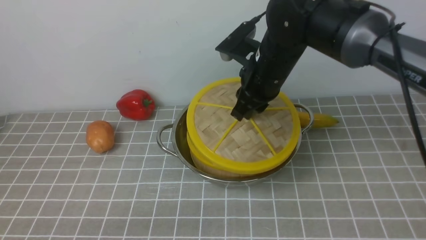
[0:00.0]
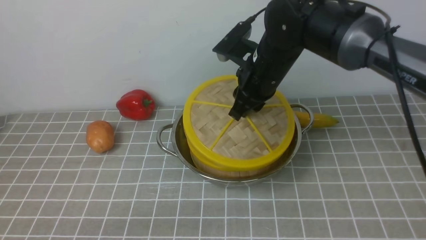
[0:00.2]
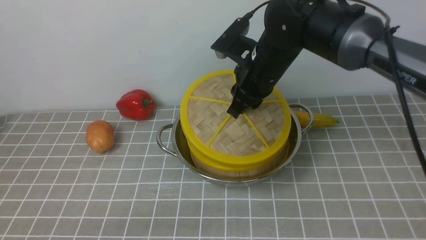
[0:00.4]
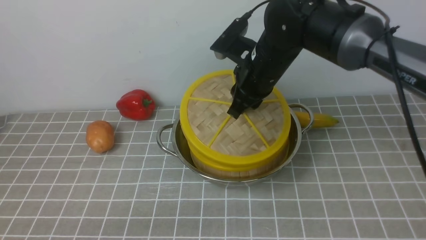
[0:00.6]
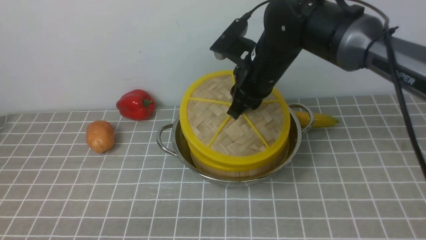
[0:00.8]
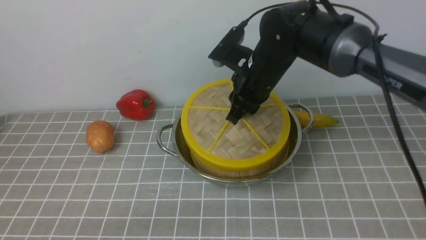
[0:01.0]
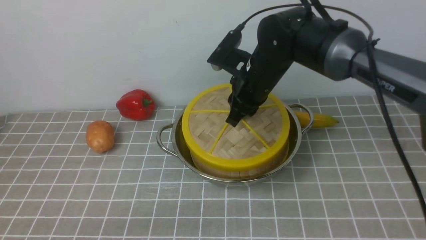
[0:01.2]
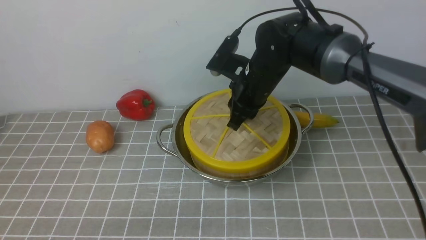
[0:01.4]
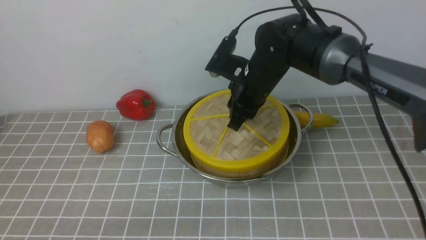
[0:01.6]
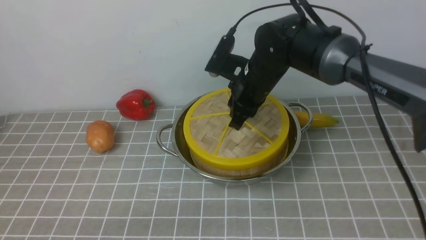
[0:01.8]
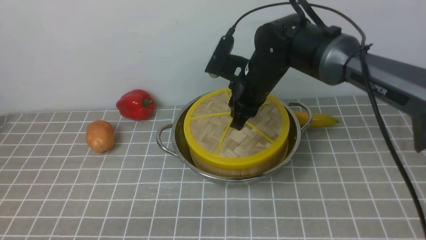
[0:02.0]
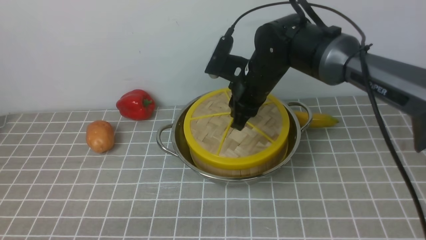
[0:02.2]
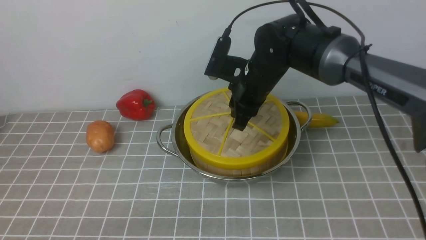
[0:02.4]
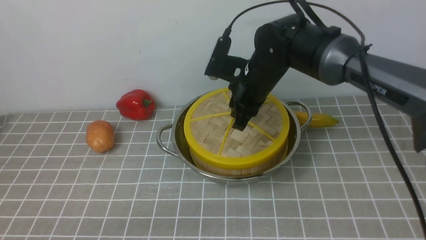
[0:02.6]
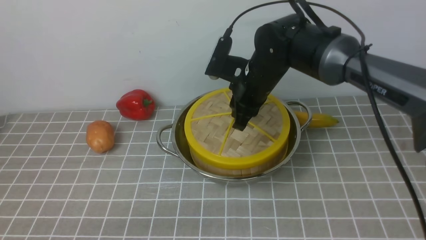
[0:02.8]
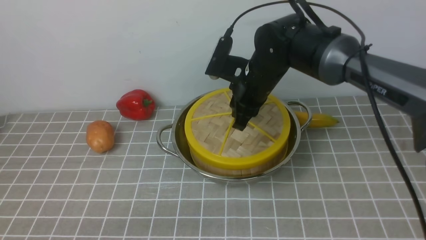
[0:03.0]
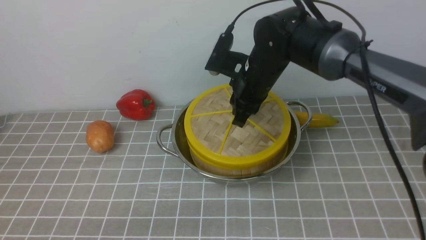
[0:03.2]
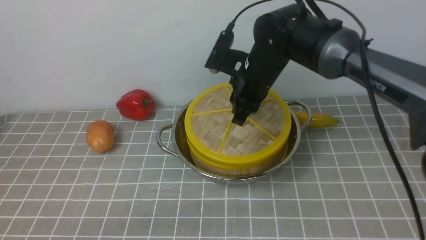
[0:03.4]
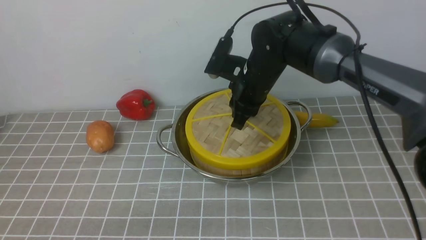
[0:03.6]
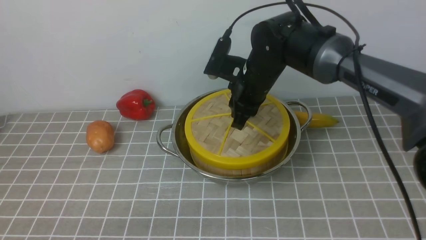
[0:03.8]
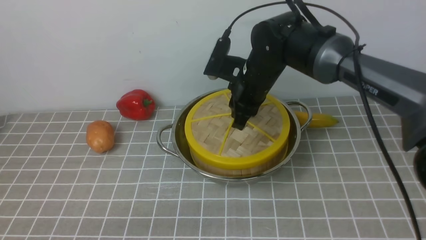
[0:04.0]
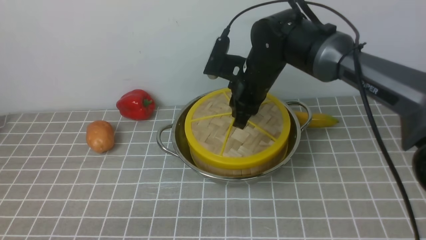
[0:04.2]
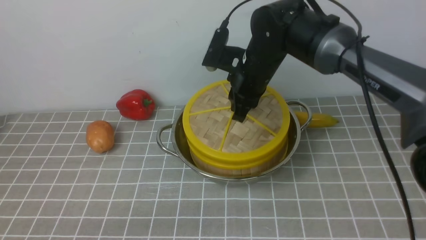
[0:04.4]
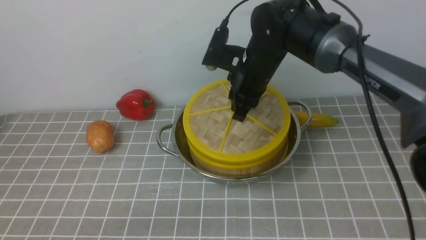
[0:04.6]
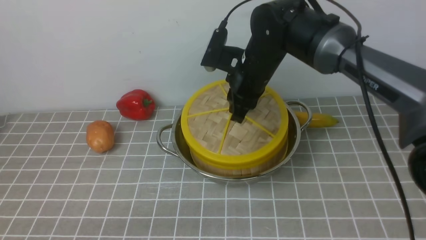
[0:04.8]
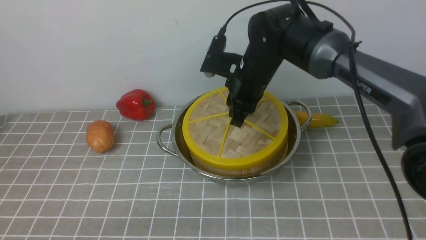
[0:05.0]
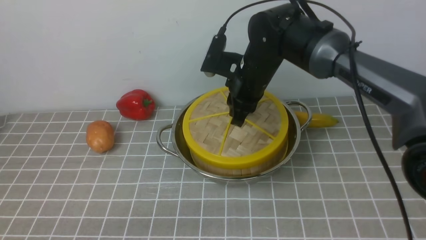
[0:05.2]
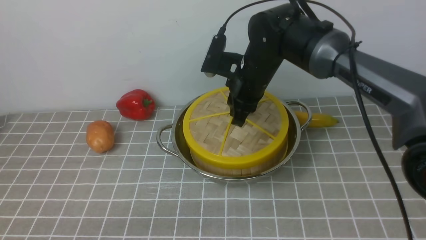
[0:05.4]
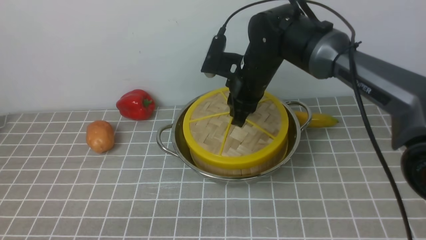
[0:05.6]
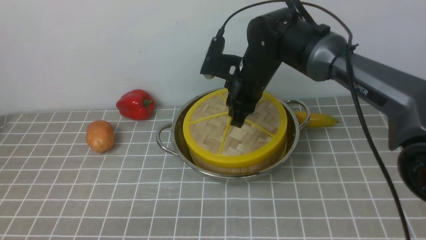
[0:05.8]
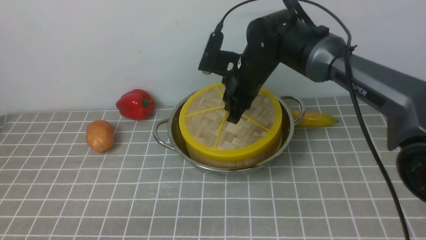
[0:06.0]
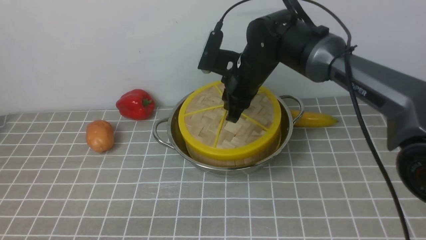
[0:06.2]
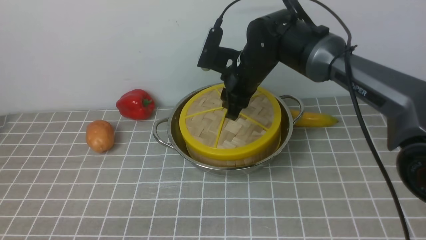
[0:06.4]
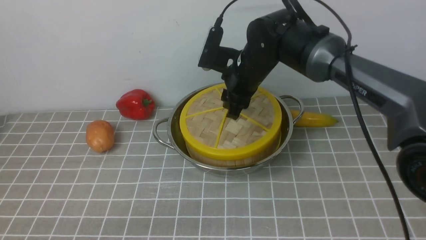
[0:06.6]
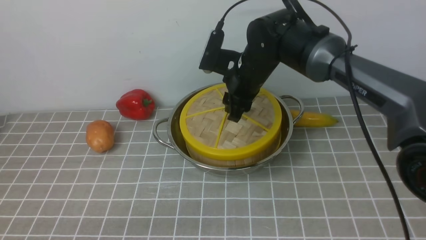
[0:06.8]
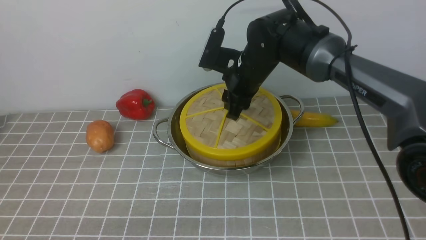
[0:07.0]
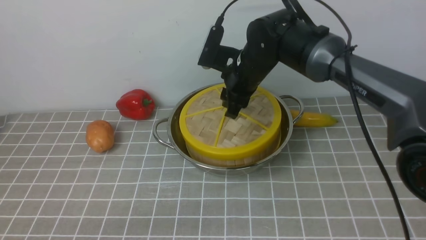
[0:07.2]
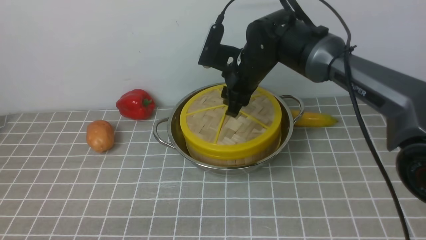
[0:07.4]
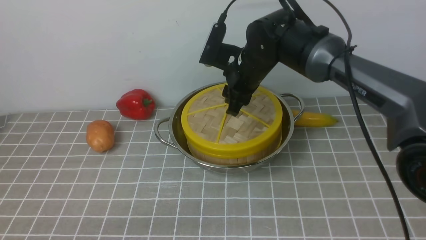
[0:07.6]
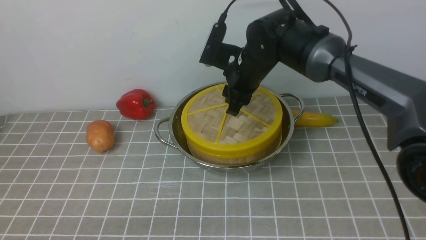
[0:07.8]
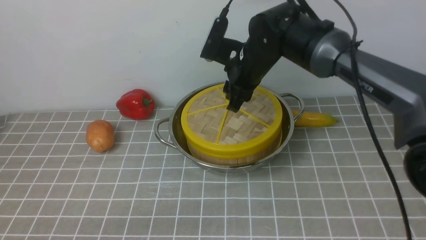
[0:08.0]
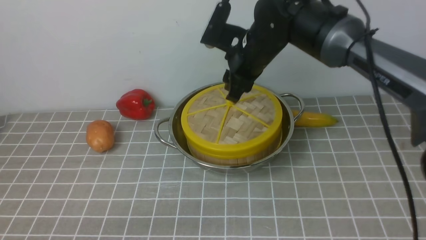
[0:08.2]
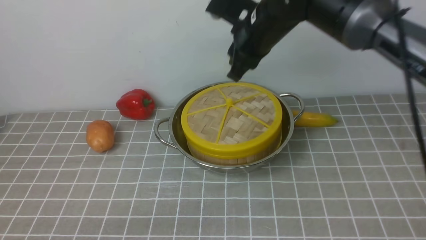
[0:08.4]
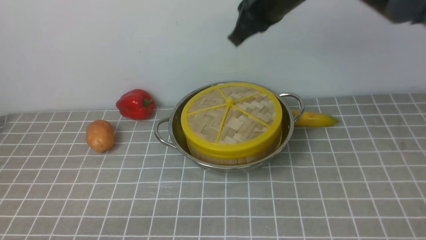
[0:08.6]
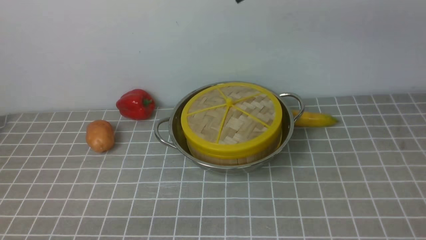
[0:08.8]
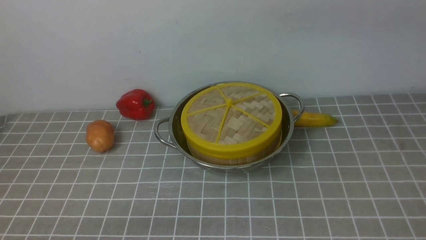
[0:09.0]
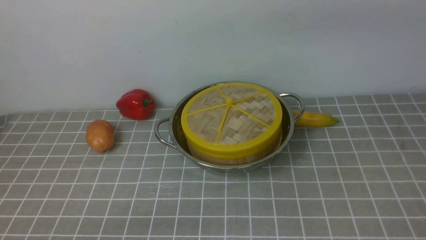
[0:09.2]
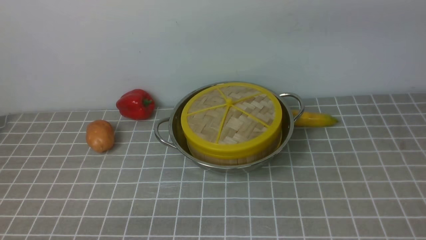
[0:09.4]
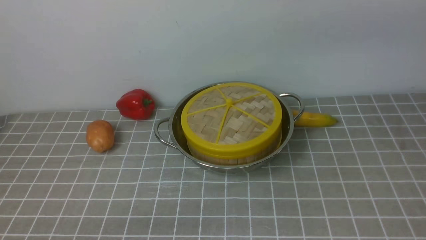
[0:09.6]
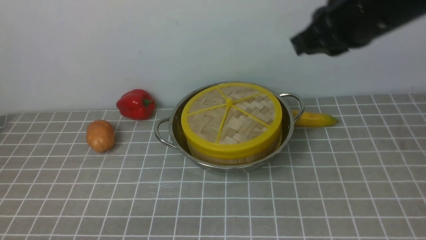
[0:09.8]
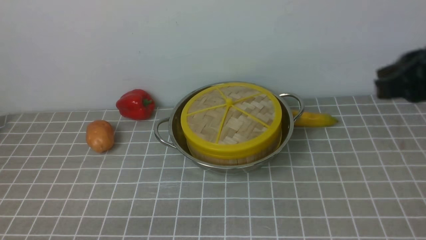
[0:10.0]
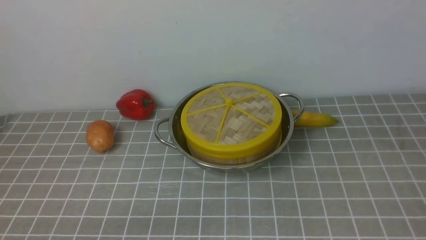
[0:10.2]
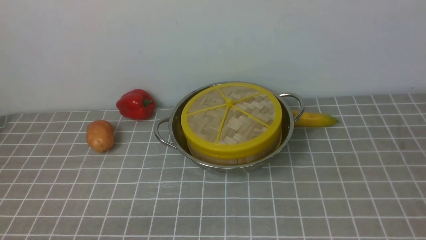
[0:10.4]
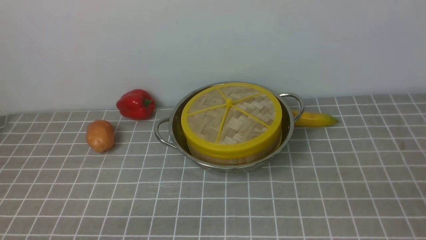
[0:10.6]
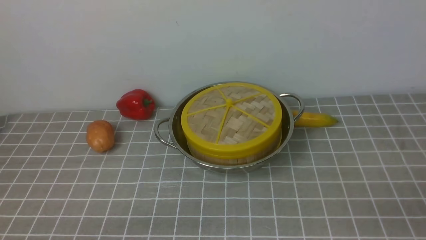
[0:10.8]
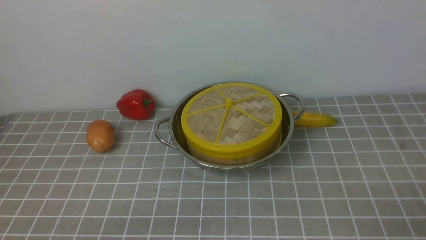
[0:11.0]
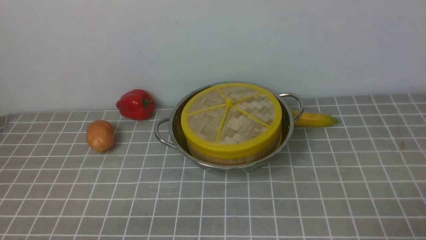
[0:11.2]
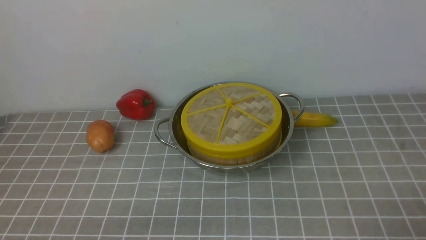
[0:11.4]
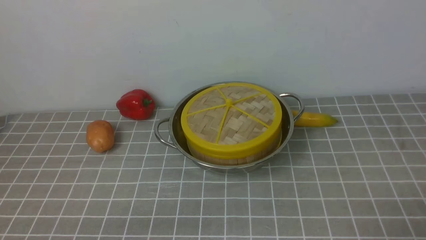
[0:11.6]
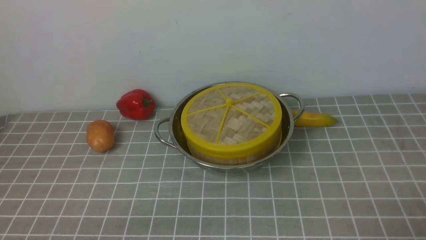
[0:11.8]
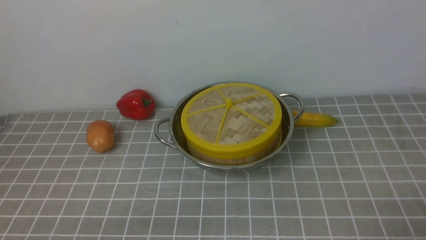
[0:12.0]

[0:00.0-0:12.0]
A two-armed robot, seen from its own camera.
Task of the whole recording: place the steamer in the pot on the grey tablecloth, and put the lid on the steamer.
Step, 0:00.0 to 0:08.2: use the right arm to place the steamer lid on the steamer.
0:00.0 to 0:01.6: The right gripper changes place by approximately 5 cm.
0:01.6 to 0:03.0: The grippers stay close to where they were, moving slightly.
0:03.0 to 0:04.4: Both grippers stay put.
0:04.4 to 0:06.0: The grippers move only a little.
0:06.0 to 0:07.6: The right gripper opens.
0:07.6 to 0:09.0: The right gripper shifts roughly 25 cm upward and backward, and closes up.
0:09.0 to 0:10.4: The right gripper moves backward, to the right and downward, approximately 35 cm.

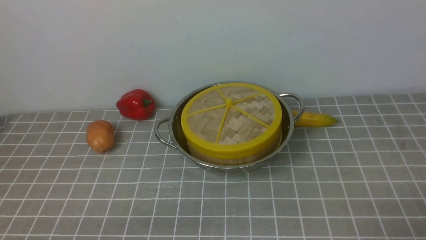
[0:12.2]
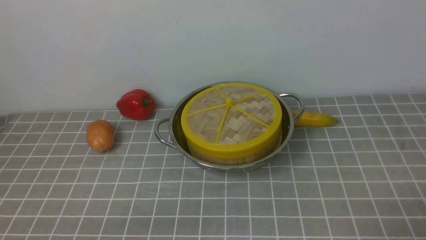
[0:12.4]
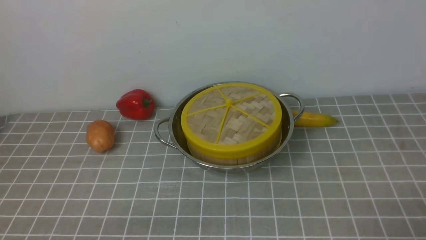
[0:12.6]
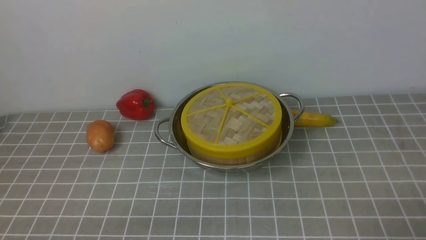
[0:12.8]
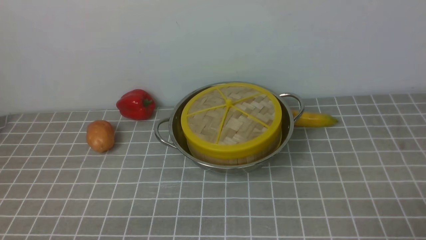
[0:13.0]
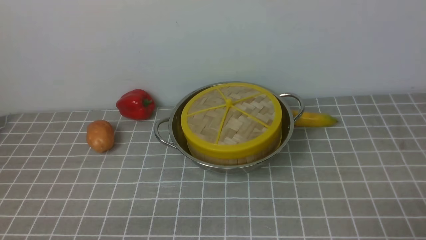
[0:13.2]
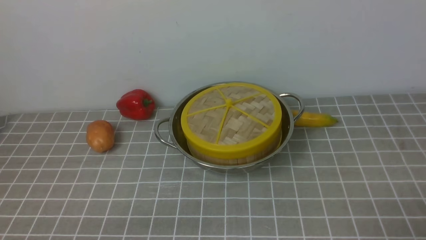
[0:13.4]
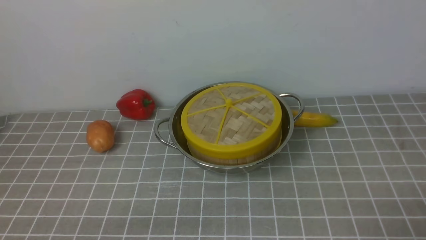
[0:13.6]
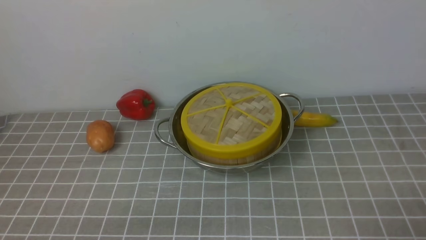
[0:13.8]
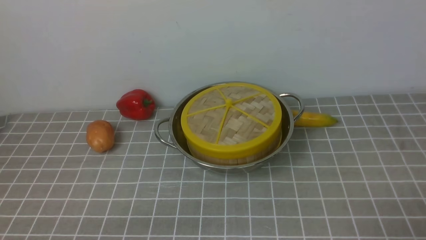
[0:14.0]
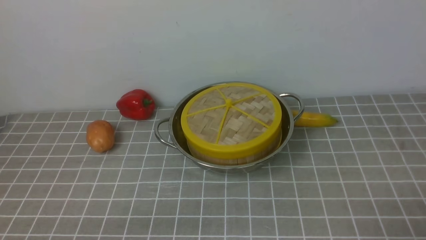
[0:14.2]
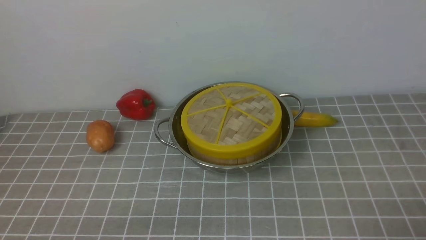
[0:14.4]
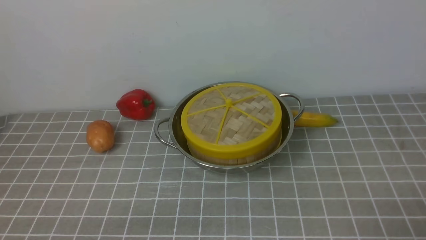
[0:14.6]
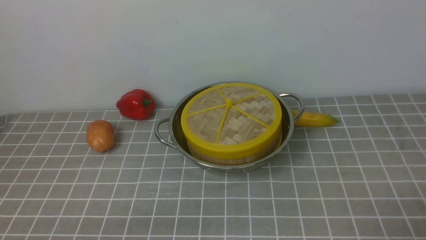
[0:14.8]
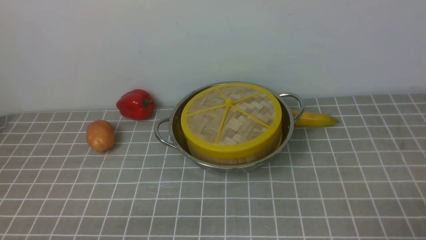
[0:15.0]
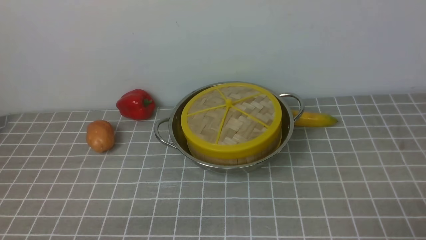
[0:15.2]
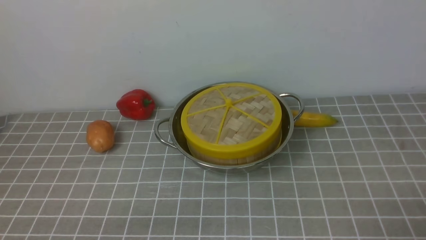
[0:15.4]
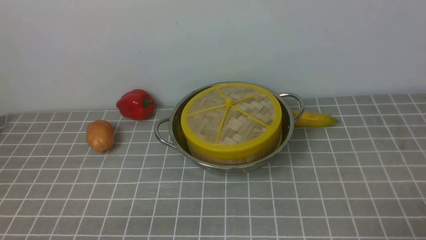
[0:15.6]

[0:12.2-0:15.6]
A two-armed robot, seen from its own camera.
Task of the whole recording: place the steamer in the pot on the grey tablecloth, and put the lid on the steamer.
0:12.2 to 0:15.6: Neither gripper changes place.

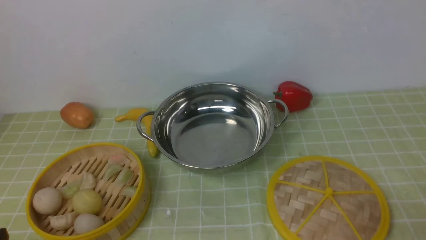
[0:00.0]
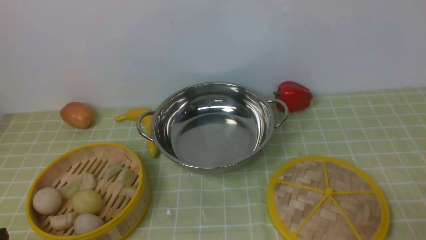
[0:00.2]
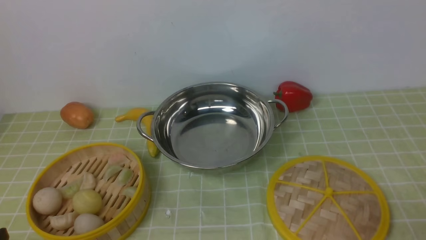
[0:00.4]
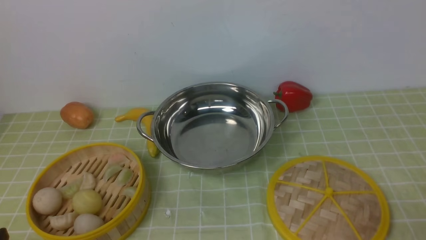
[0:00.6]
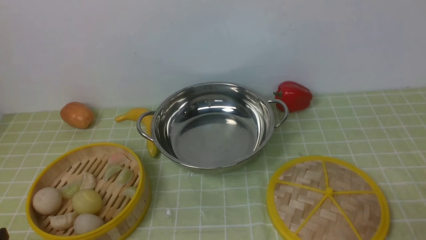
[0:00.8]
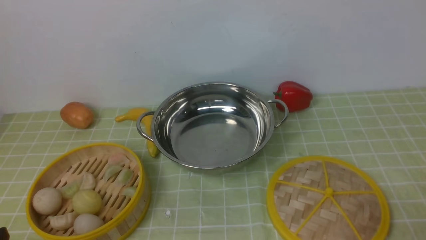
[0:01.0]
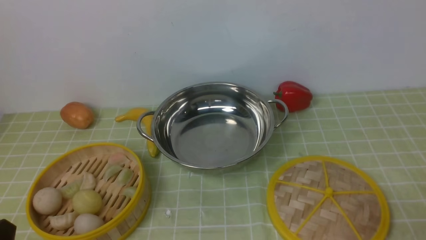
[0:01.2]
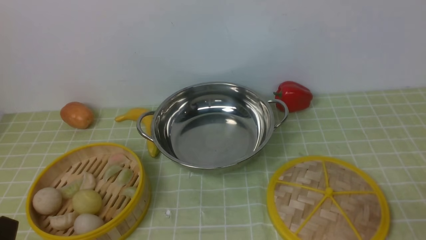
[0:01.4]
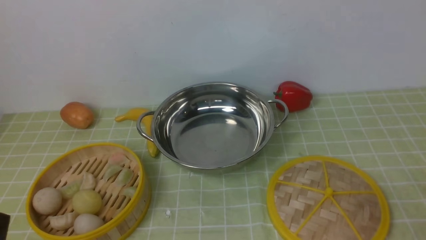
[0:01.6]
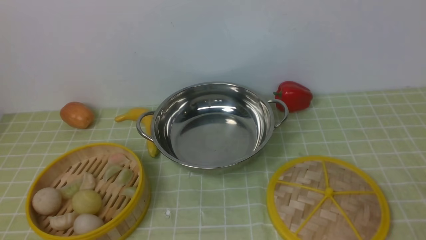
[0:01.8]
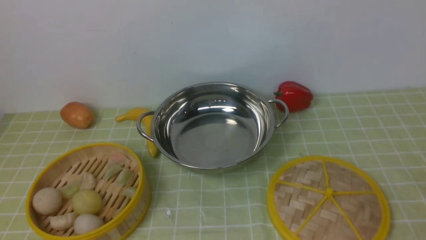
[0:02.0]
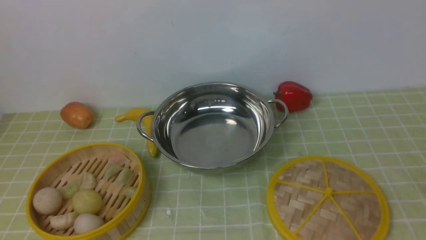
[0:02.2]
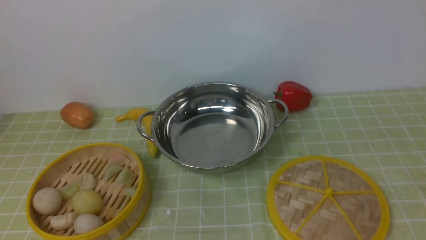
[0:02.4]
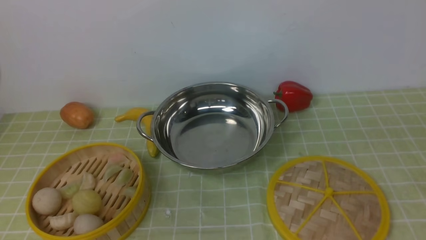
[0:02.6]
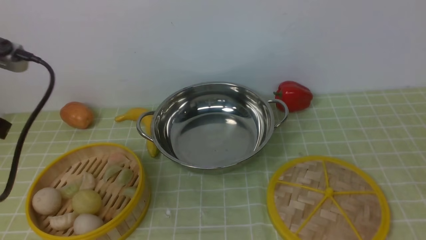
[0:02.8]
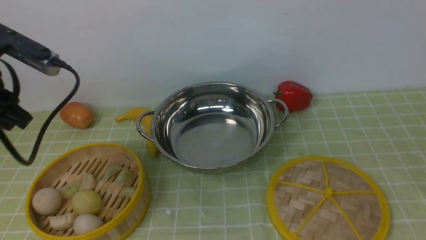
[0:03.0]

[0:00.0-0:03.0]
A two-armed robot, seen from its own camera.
Task of the whole recording: place the steamer in the pot on the green tablecloth, and put the lid on the steamer.
0:01.6 to 0:03.0: The right gripper moves upward and forward, approximately 15 cm, while the left gripper is displaced forward and upward by approximately 30 cm.
